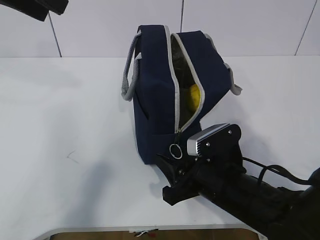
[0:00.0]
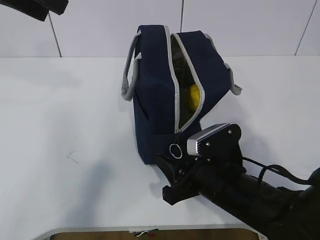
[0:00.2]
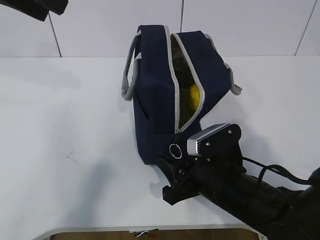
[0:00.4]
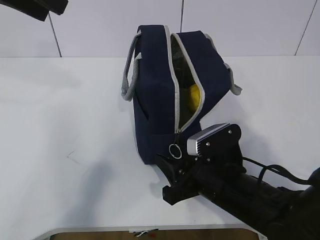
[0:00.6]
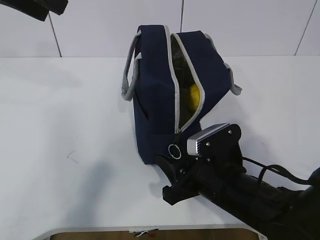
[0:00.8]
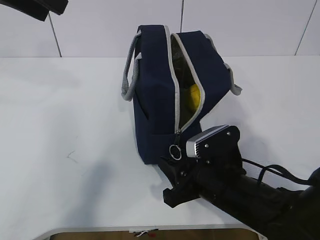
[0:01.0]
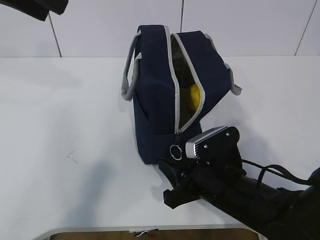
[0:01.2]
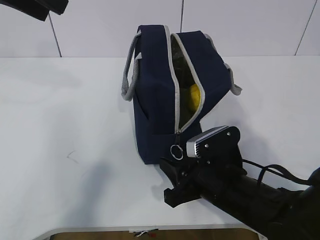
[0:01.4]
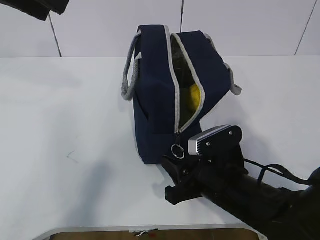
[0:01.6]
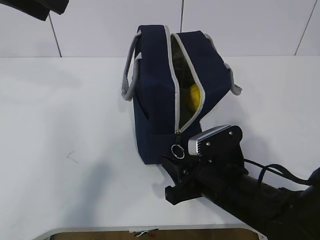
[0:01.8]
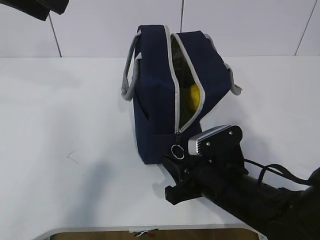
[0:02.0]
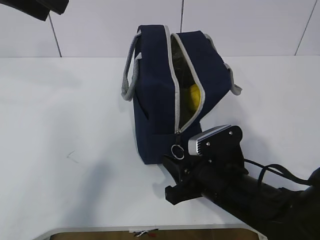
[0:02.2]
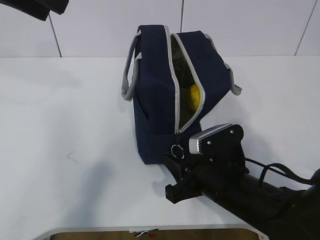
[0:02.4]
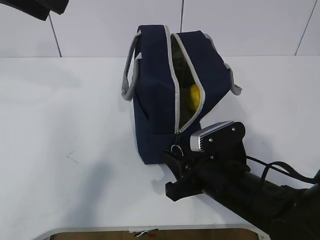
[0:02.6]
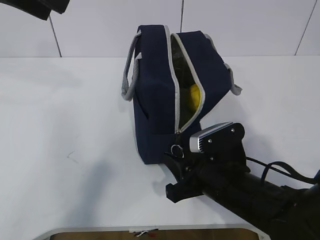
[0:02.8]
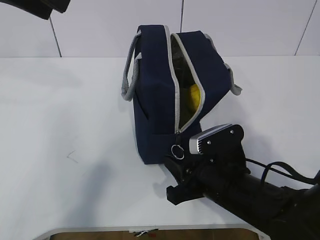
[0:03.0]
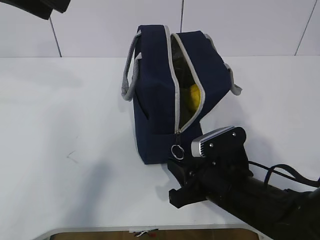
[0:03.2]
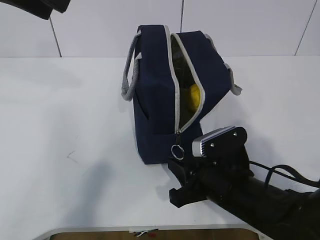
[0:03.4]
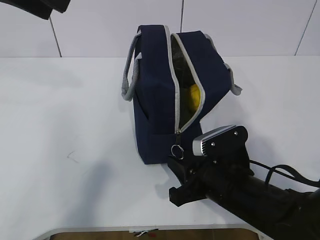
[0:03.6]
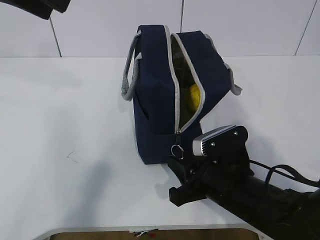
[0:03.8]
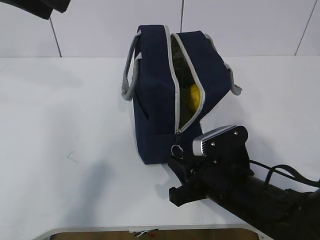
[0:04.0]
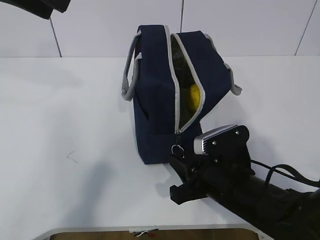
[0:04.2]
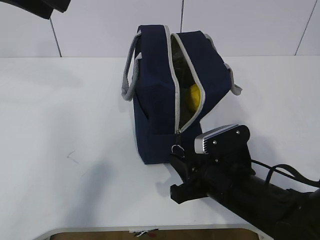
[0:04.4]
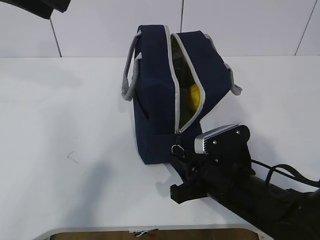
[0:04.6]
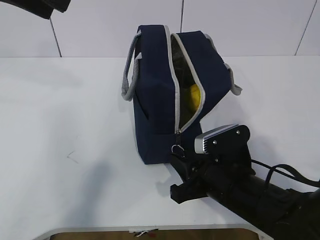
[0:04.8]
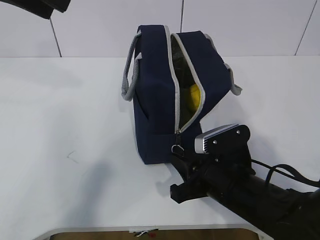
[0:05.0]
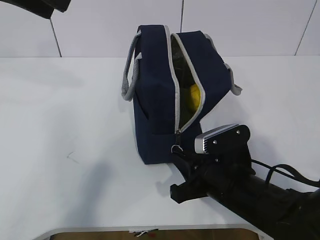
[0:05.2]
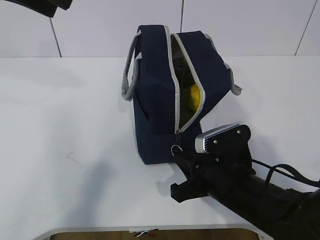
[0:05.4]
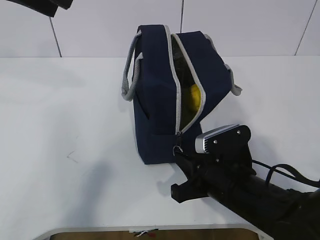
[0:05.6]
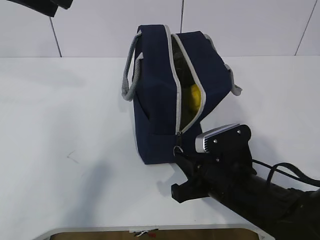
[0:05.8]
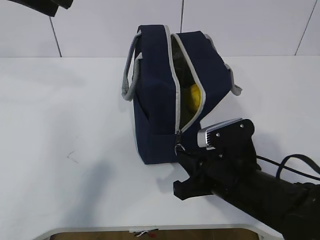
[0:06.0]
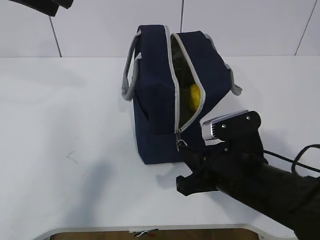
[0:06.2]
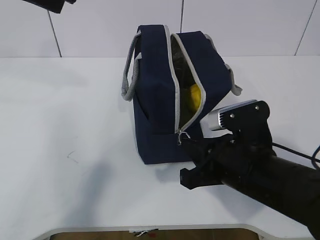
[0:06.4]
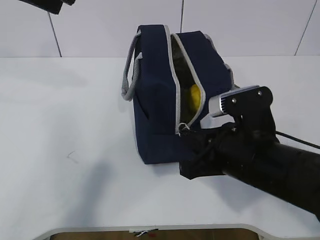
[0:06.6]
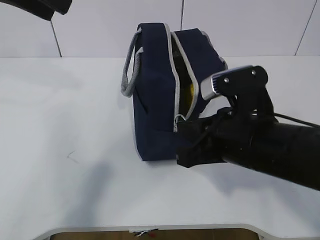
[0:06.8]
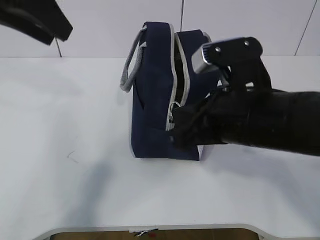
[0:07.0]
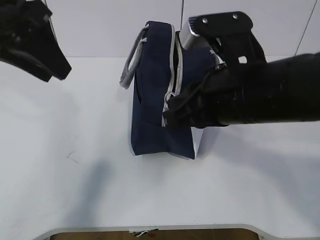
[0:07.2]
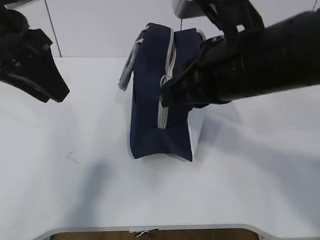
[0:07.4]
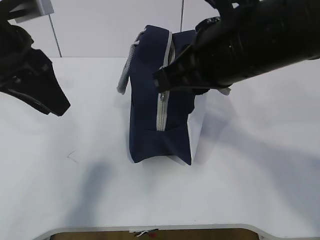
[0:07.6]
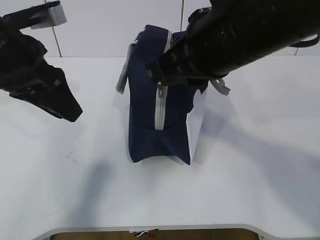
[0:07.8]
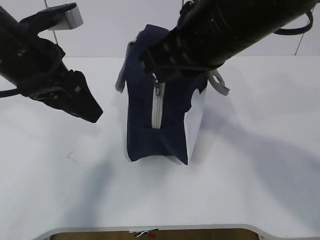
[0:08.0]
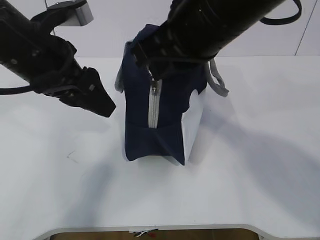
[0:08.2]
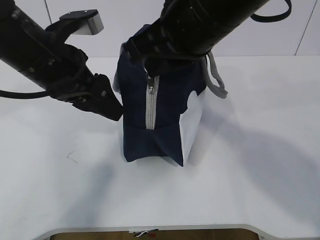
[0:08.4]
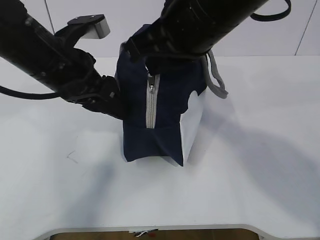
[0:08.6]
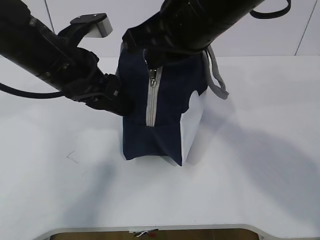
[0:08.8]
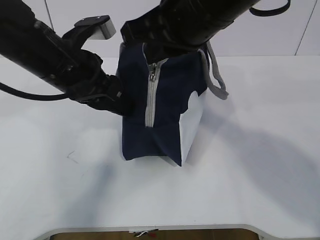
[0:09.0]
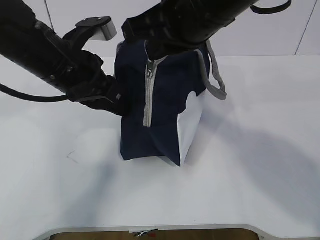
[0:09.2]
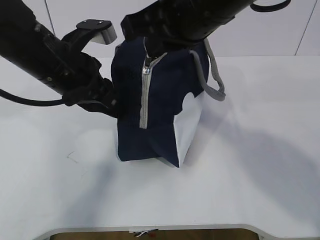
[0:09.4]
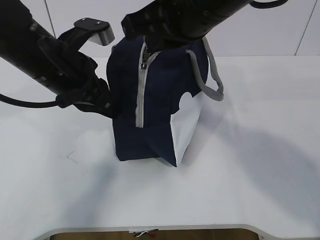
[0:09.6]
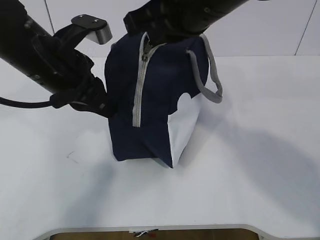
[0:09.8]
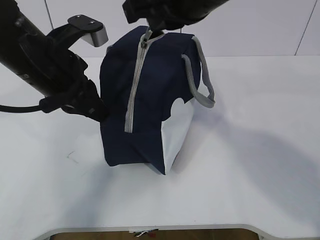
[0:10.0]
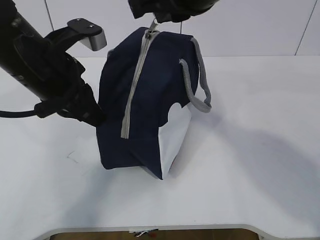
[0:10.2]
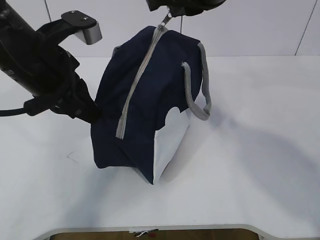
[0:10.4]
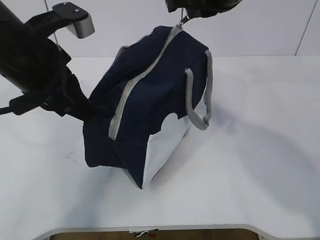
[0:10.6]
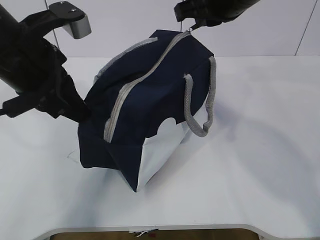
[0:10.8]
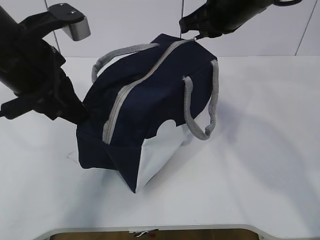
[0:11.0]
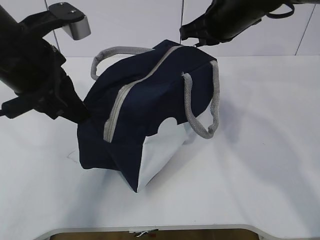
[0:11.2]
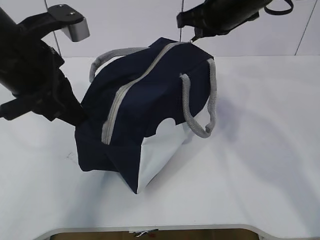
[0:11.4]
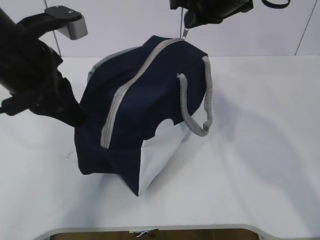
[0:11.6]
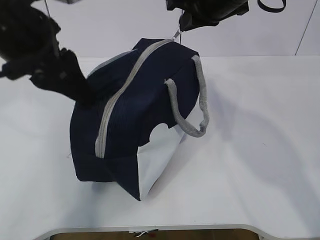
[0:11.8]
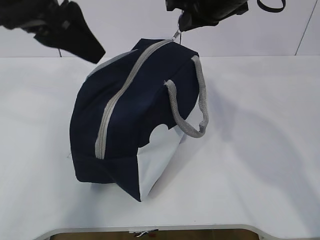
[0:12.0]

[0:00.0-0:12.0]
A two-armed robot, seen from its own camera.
Step, 0:02.6 to 0:05.2: Pull the zipper with your right hand.
0:00.0 to 0:03.0: Both grippers stay about where they are.
0:03.0 to 0:04.4: The two grippers keep their place.
0:04.4 to 0:06.0: The right gripper closes.
0:06.0 to 0:07.6: The right gripper is displaced upward by some 20 cm, while the left gripper is displaced downward by some 10 cm.
0:07.6 to 0:09.0: The left gripper shifts roughly 10 cm to the right and downward; the right gripper moves about 5 cm.
0:09.0 to 0:10.4: The left gripper closes its fingers.
0:10.4 to 0:12.0: The left gripper travels upward by about 10 cm, and opens up. Meanwhile the right gripper is displaced forward by some 10 cm.

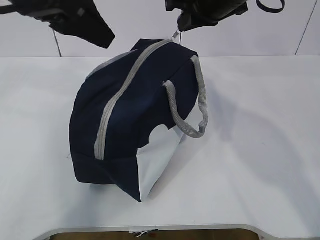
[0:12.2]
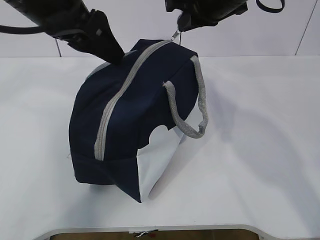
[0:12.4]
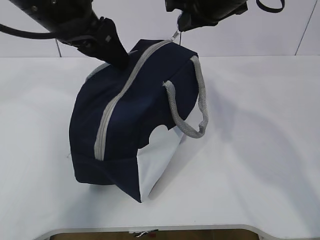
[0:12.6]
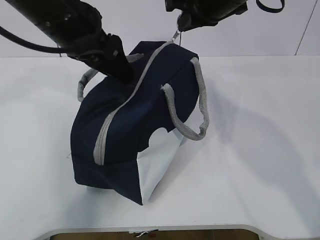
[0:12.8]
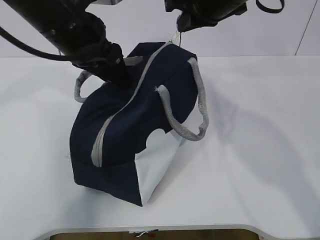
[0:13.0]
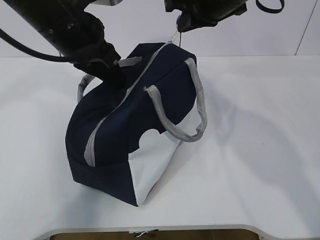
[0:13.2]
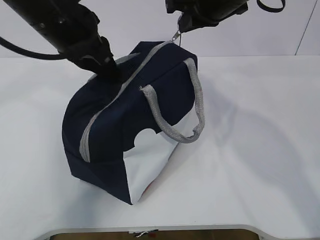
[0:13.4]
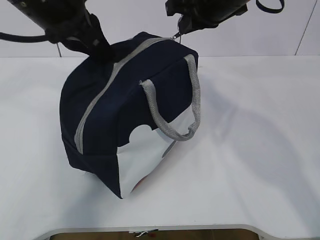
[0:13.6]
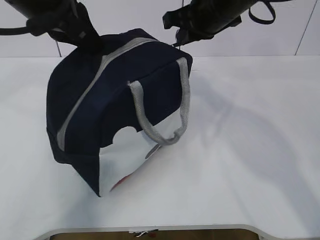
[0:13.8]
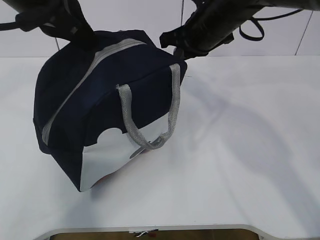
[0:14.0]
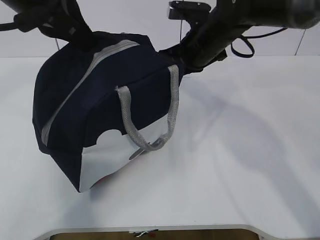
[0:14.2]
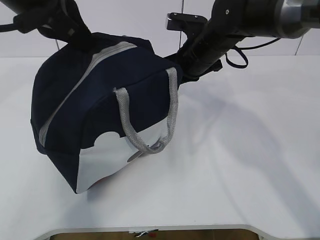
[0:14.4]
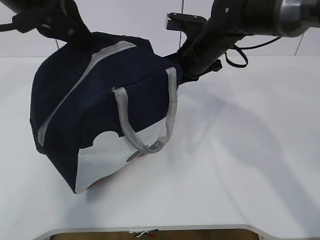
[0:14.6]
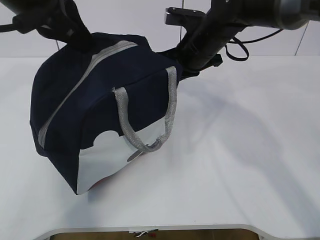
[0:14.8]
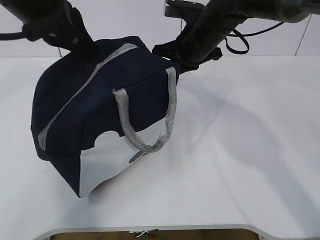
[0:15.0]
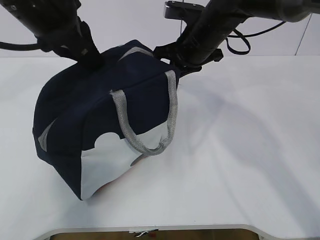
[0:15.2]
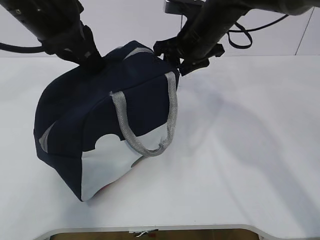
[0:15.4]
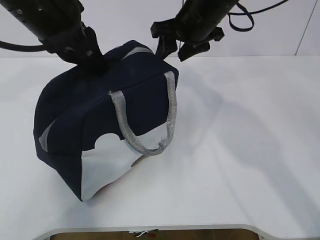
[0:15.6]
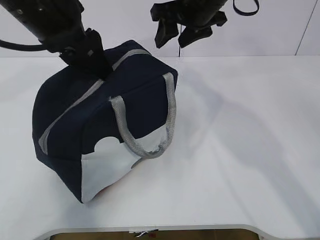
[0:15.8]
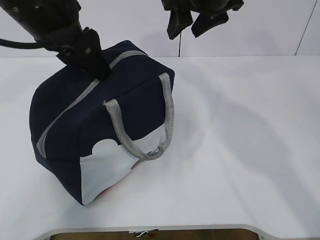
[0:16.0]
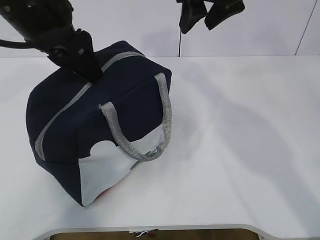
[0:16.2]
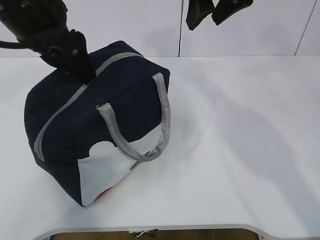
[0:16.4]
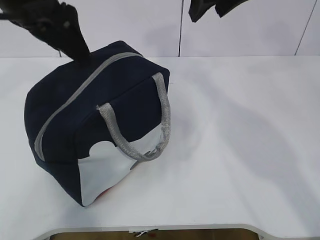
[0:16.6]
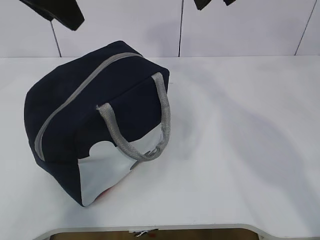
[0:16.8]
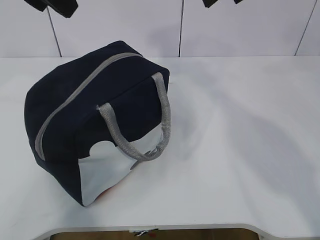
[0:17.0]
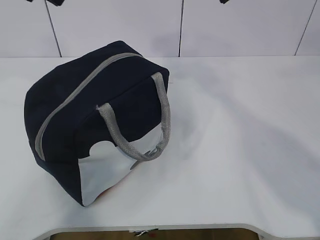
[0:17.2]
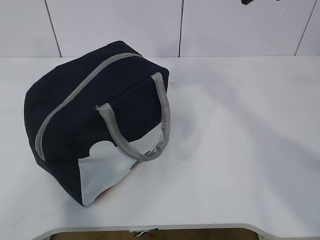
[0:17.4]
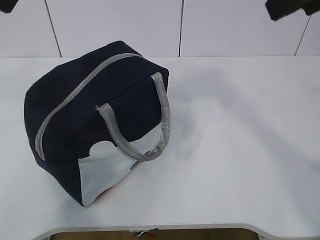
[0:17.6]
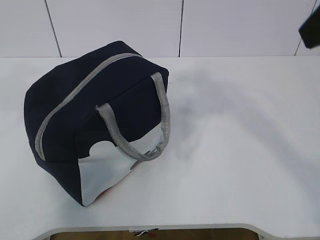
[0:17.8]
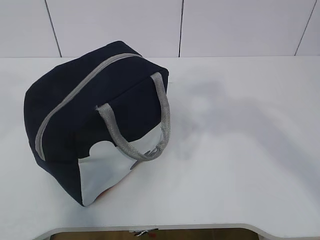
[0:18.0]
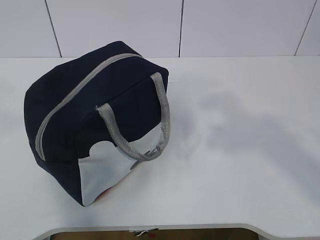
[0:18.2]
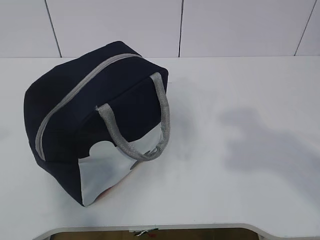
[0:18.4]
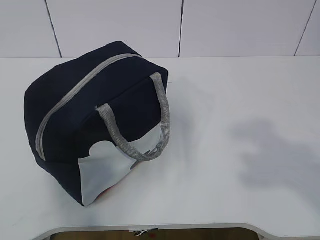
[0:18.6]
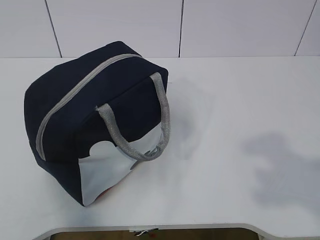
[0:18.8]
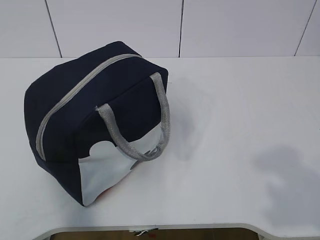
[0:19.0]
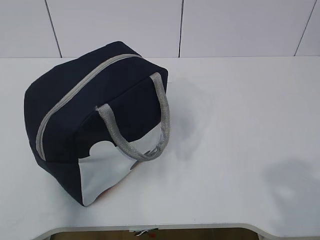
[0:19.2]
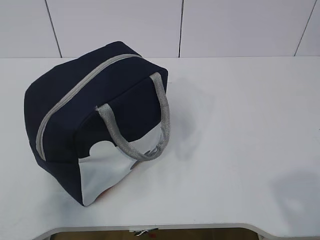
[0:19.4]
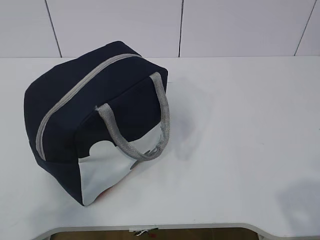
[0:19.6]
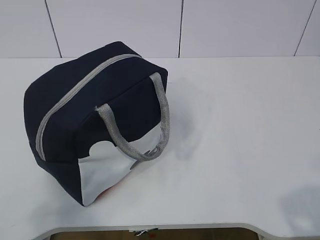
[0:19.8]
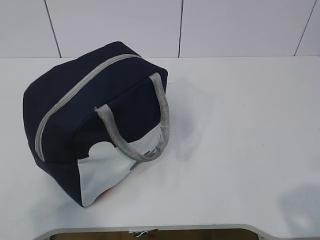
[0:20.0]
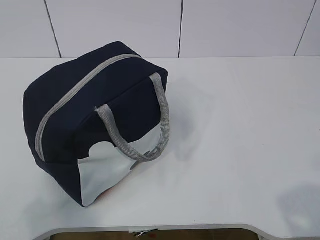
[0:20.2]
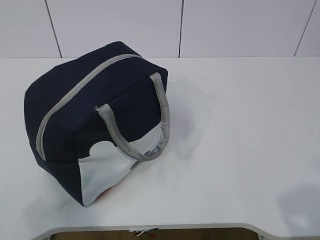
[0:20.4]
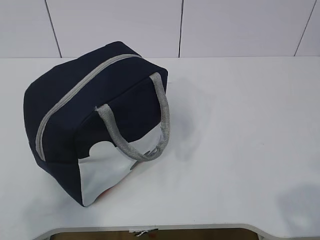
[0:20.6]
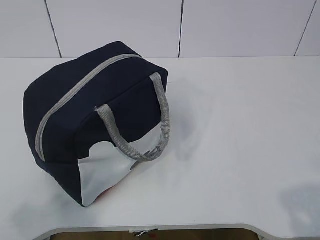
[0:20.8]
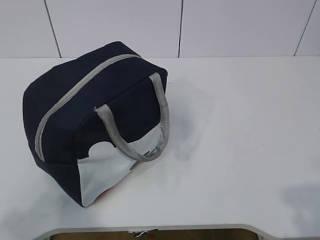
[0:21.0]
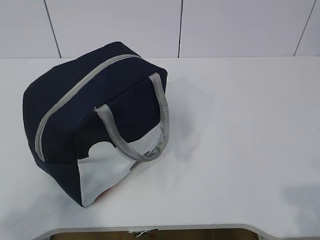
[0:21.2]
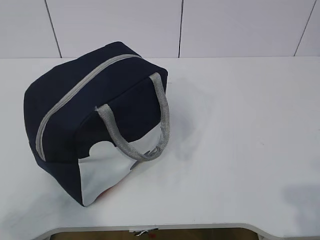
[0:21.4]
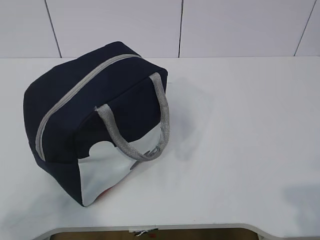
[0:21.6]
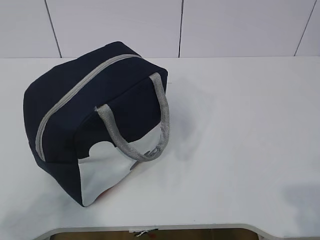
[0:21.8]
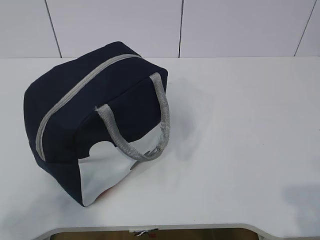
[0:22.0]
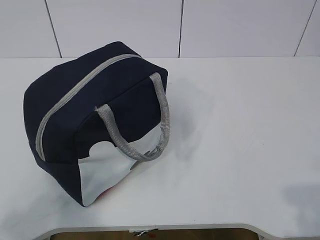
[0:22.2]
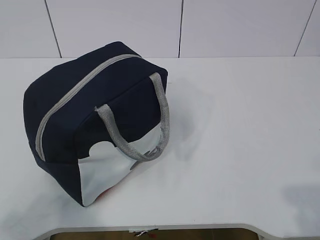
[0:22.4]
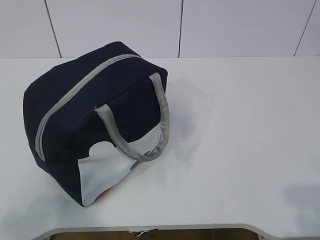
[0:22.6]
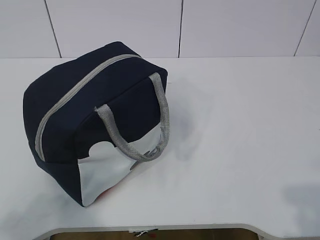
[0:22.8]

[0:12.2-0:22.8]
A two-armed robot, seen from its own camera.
0:12.2 to 0:13.8: The left gripper closes its fingers.
0:13.8 to 0:15.2: The right gripper is displaced downward by roughly 5 cm.
0:15.2 to 0:16.8: The left gripper goes roughly 5 cm upward, and opens its fingers; the right gripper is displaced upward and backward by approximately 15 cm, and opens up.
0:16.8 to 0:18.2: The right gripper shifts roughly 25 cm backward. Meanwhile the left gripper heads backward and to the left, covering roughly 20 cm.
0:18.2 to 0:19.8: The left gripper shifts approximately 20 cm downward, backward and to the left. The right gripper travels downward and backward by some 20 cm.
0:21.2 to 0:22.8: The two grippers keep their place.
